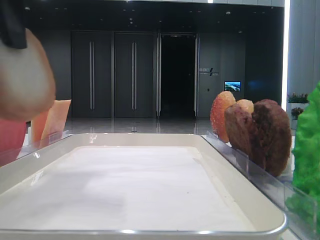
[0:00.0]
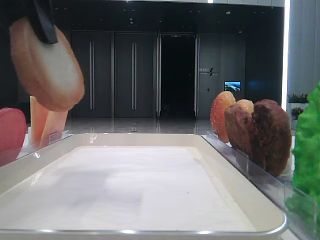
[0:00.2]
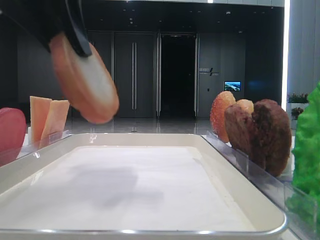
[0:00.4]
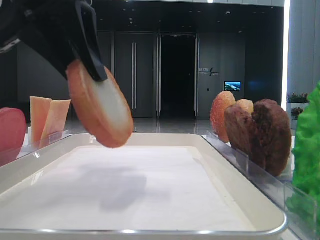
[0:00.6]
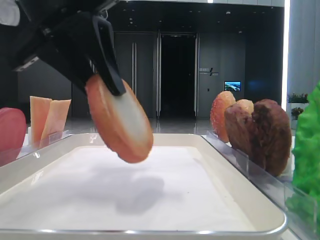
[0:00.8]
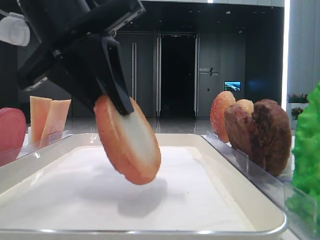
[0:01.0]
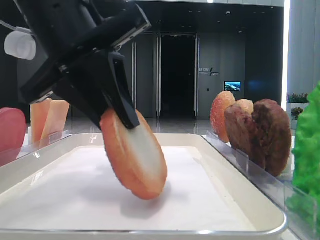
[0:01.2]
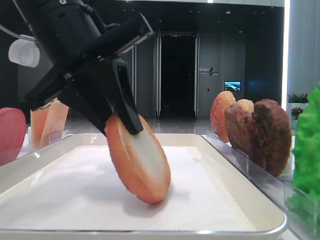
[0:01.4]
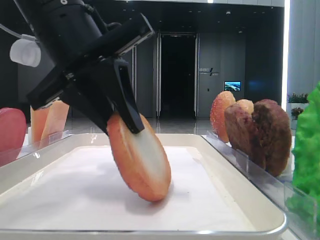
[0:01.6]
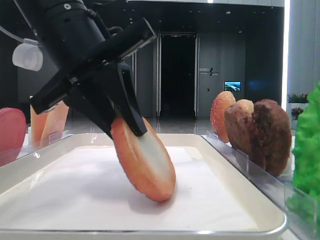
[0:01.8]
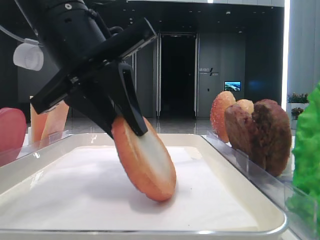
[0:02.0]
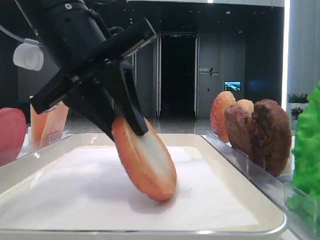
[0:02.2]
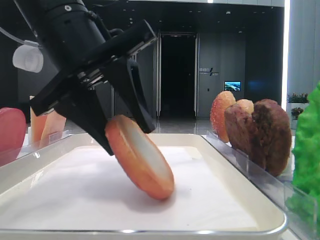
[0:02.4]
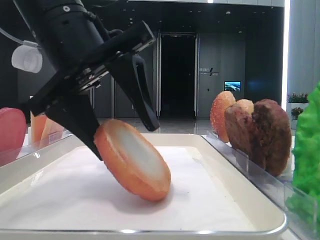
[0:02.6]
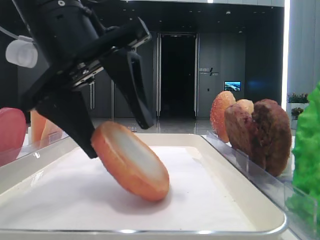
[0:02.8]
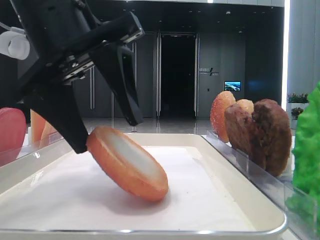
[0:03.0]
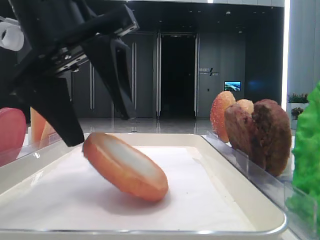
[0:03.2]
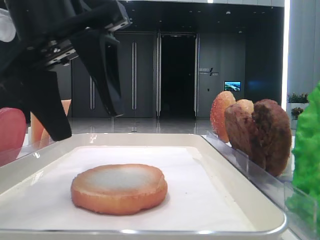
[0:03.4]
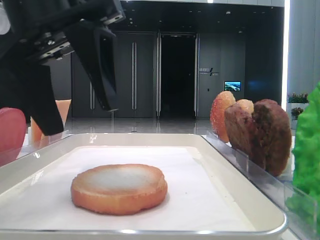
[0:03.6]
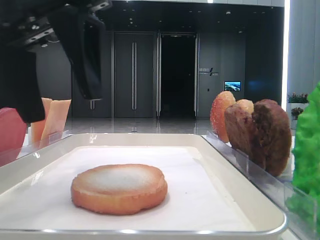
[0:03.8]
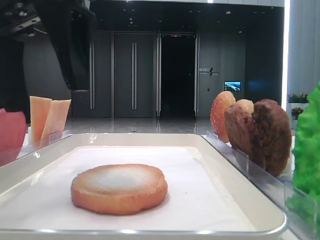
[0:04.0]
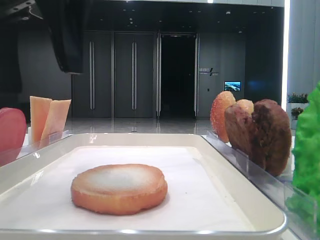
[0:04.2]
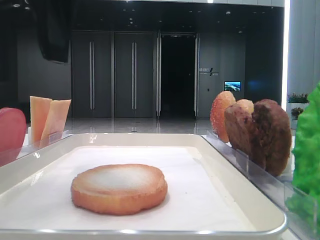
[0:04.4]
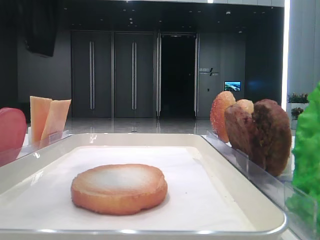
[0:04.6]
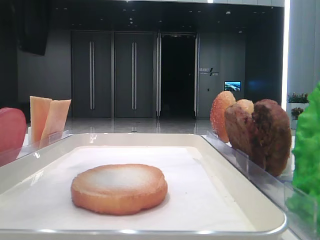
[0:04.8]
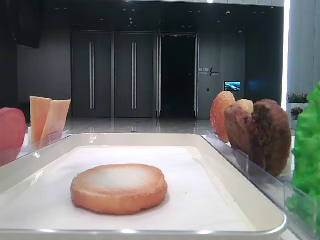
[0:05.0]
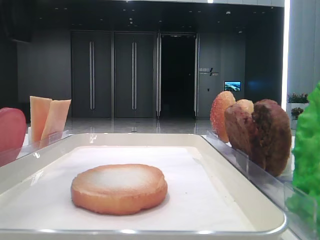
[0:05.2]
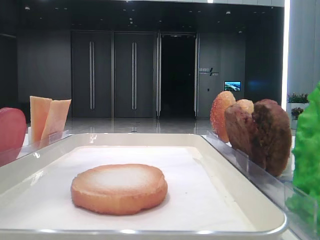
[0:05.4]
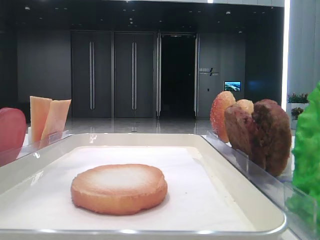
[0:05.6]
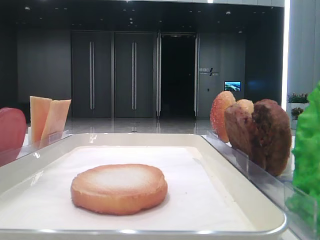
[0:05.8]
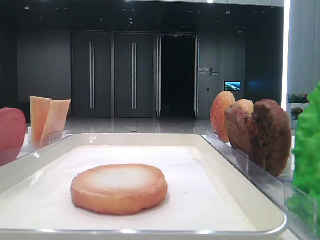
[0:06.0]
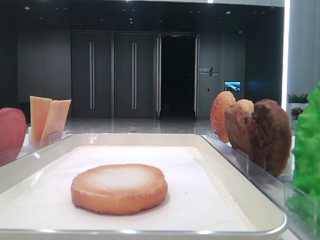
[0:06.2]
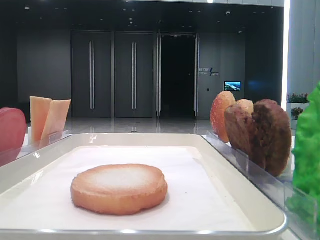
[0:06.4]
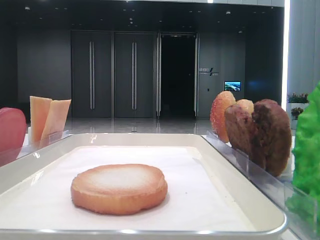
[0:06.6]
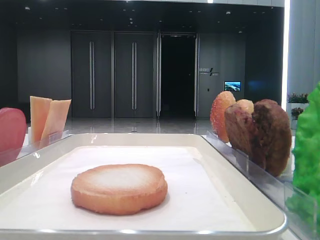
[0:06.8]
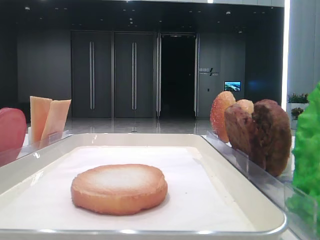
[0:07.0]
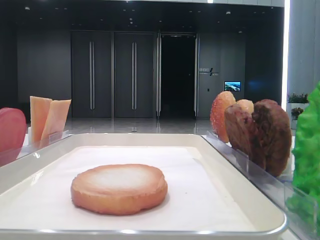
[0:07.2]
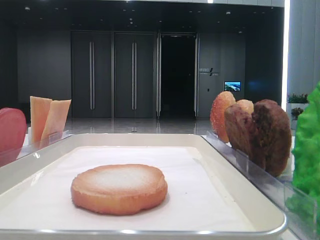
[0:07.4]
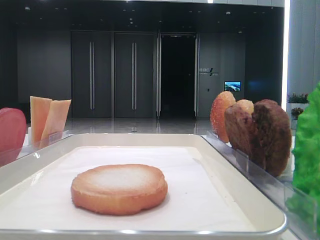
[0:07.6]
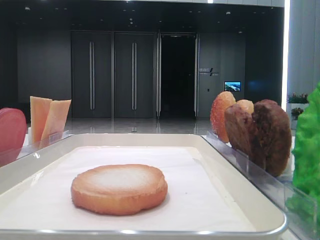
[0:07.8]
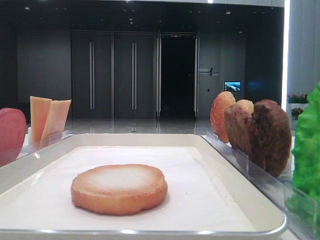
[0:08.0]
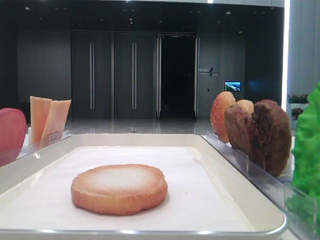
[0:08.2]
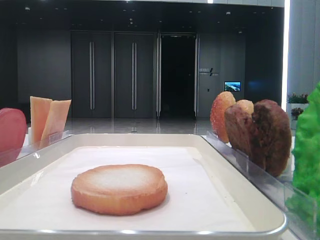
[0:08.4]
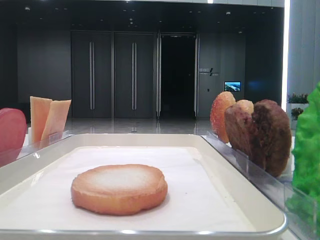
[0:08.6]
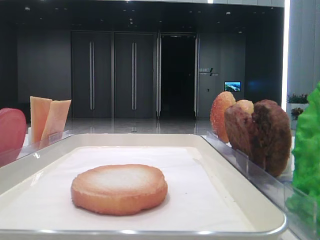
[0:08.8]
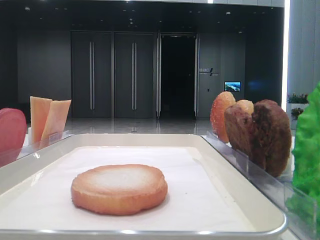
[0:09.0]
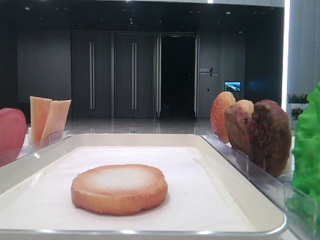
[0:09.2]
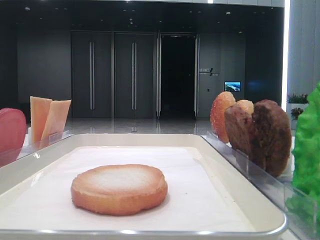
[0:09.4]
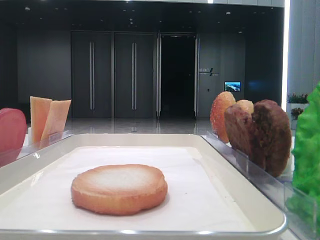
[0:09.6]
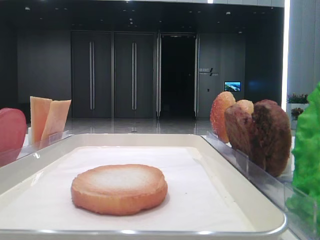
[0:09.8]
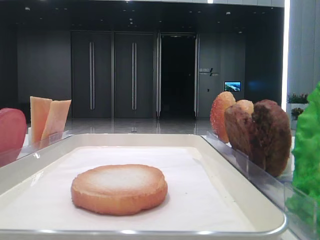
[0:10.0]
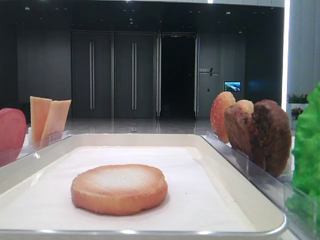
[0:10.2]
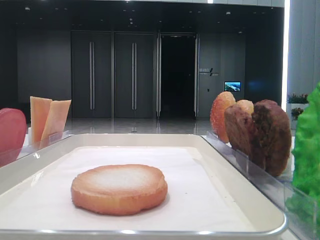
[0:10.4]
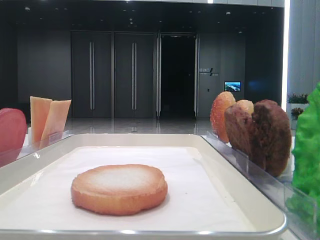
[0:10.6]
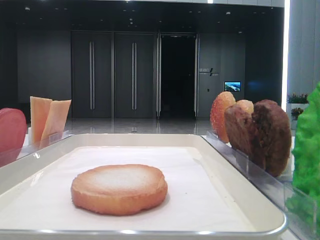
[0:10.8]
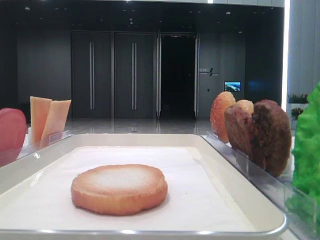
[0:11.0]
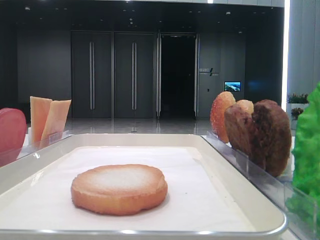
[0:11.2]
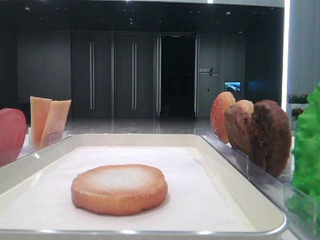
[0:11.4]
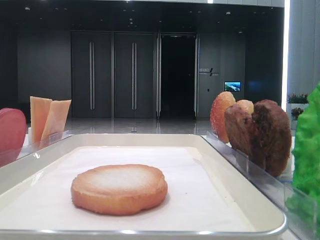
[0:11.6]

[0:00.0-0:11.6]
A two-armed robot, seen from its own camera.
Step, 0:00.0 to 0:03.2: Place the bread on the tray with the left hand.
0:00.0 to 0:01.4: The left gripper shifts roughly 10 cm downward and to the right.
0:01.4 to 0:02.8: The left gripper opens up.
0:02.8 to 0:04.4: The left gripper travels upward by some 10 cm.
0:04.4 to 0:05.8: The left gripper goes approximately 10 cm to the left and upward.
0:05.8 to 0:07.2: The left gripper moves backward and to the left, approximately 10 cm.

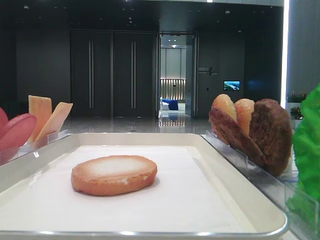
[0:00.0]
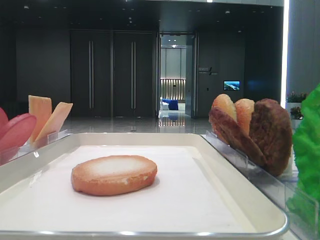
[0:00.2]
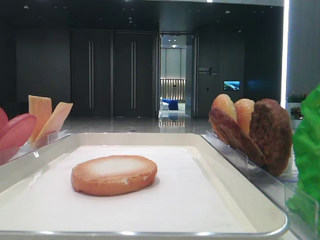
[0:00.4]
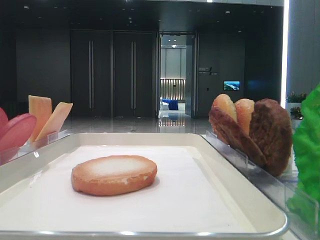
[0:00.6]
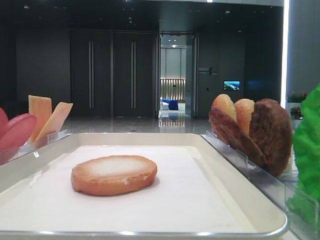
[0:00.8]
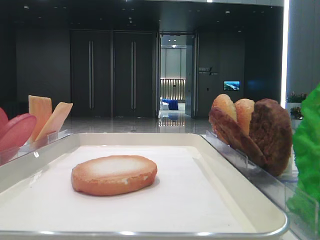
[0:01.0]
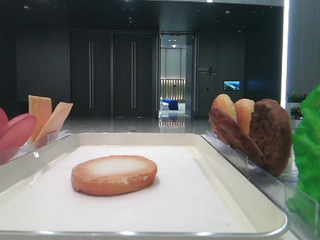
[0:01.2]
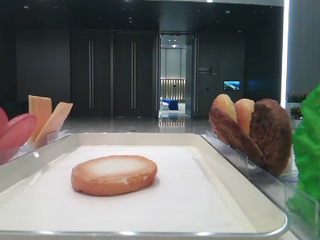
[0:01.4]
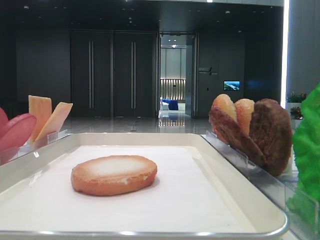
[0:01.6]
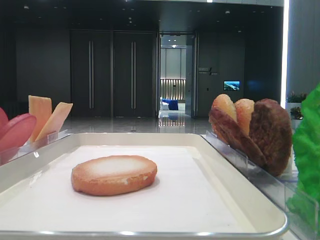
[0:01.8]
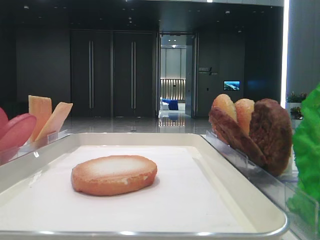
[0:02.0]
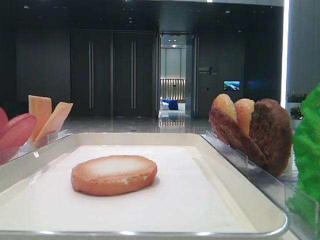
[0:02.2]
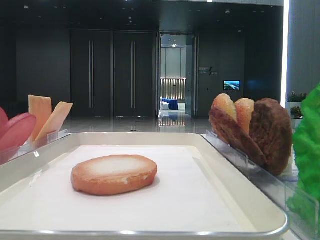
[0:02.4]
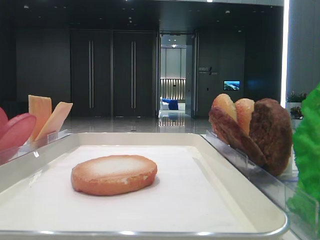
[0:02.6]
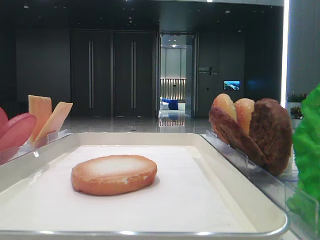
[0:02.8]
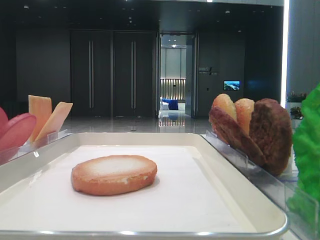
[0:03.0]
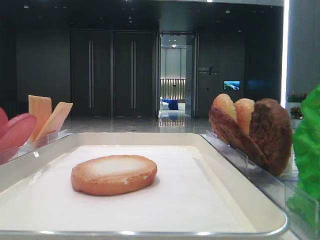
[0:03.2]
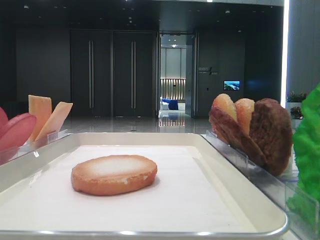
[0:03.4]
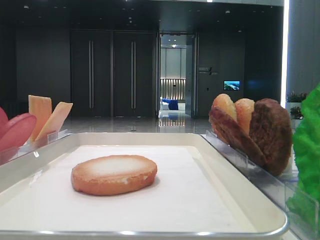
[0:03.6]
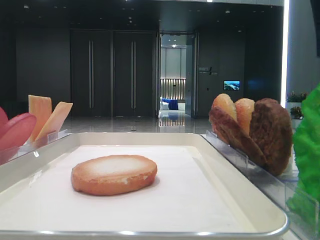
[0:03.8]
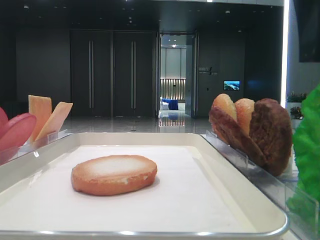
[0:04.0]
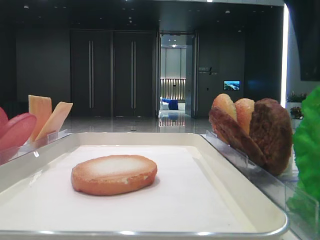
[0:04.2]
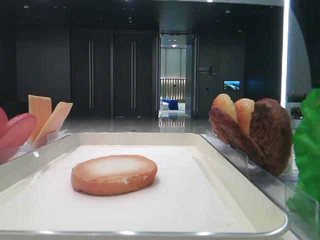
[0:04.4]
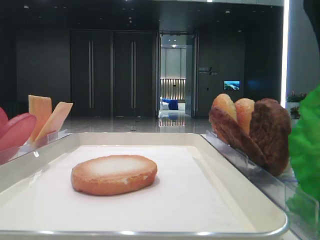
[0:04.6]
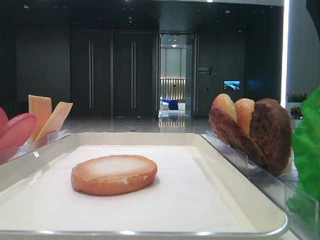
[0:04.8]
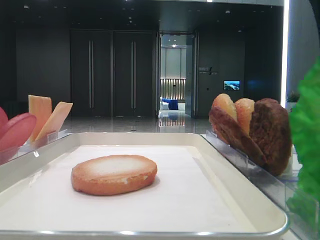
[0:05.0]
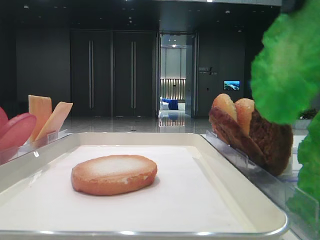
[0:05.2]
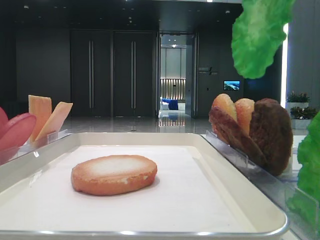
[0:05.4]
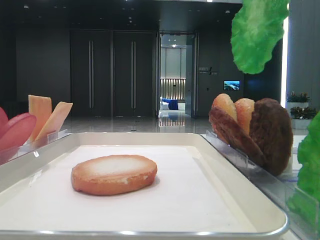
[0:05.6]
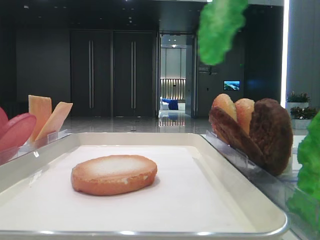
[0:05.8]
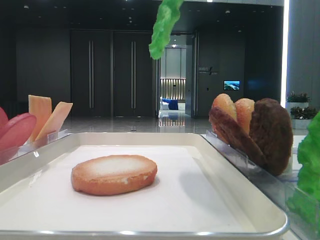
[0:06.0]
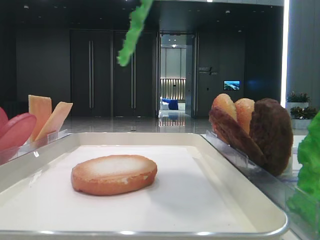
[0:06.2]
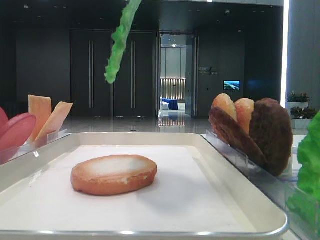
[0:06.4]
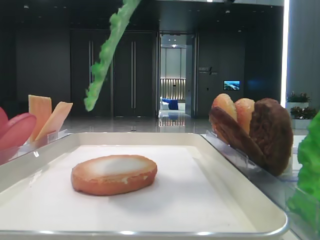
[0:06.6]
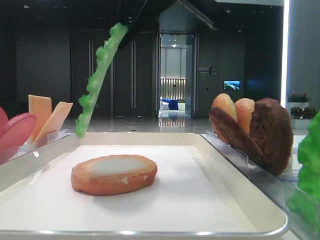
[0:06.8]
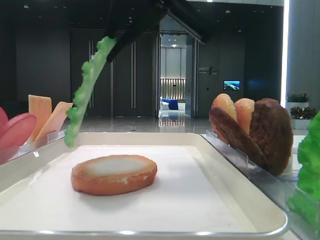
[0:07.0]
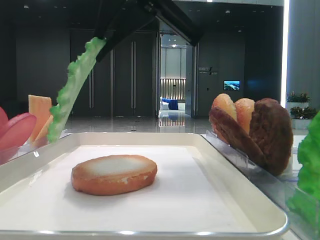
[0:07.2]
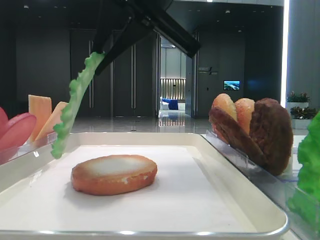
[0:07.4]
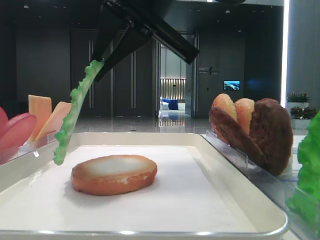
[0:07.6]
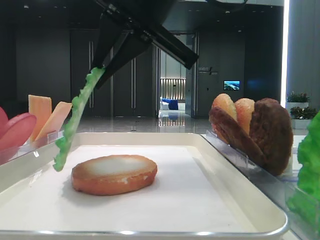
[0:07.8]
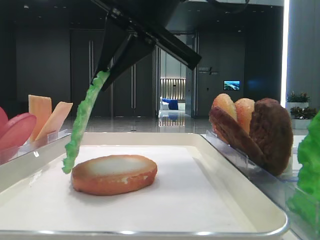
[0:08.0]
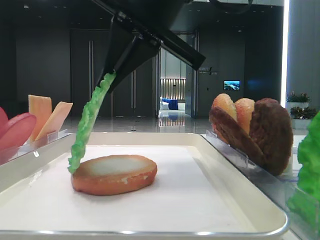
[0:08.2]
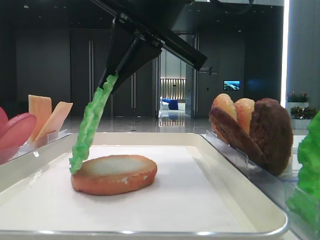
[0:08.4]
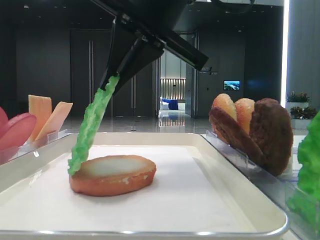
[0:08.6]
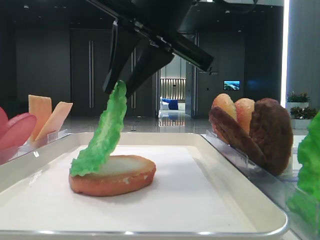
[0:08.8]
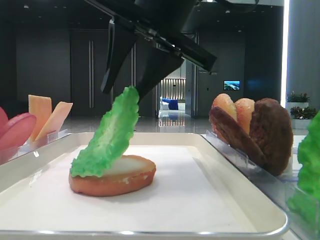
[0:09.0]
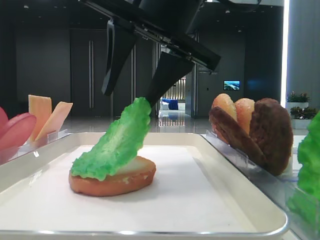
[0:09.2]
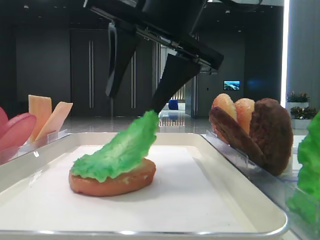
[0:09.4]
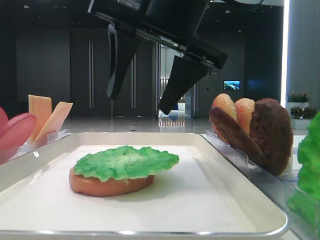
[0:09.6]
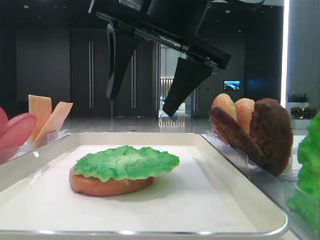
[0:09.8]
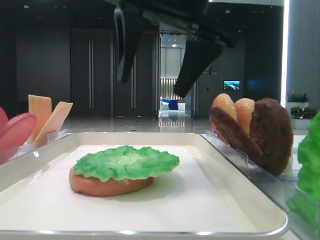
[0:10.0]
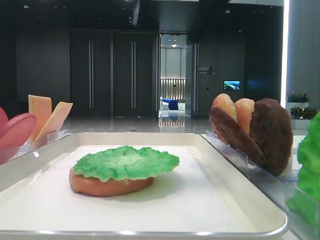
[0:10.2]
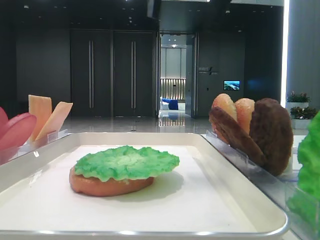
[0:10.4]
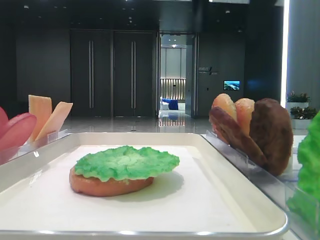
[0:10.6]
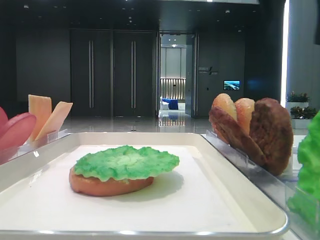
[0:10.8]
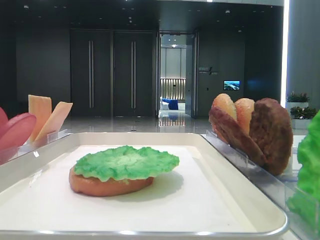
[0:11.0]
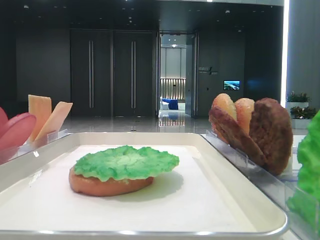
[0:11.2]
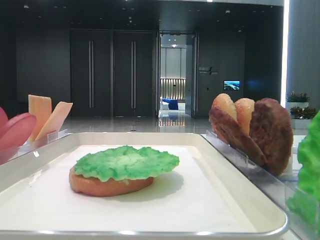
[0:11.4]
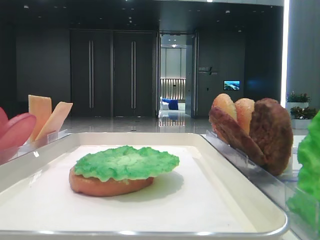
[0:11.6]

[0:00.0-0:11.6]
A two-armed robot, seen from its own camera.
Step, 0:00.0 to 0:04.8: Grab the lettuce leaf with the right hand.
Step, 0:05.0 to 0:09.6: Place the lettuce leaf on the bottom bread with the right hand.
0:02.8 to 0:04.4: The right gripper goes approximately 15 cm to the left.
0:04.4 to 0:05.8: The right gripper is displaced upward by roughly 10 cm, and closes up.
0:05.8 to 0:07.2: The right gripper shifts roughly 15 cm to the left, downward and forward.
0:07.2 to 0:08.8: There are only small adjustments of the grippers.
0:08.8 to 0:10.2: The right gripper shifts approximately 5 cm upward, and opens.
0:10.2 to 0:11.6: The right gripper is displaced to the right by some 30 cm.
